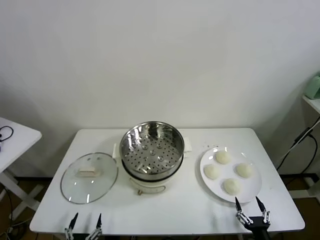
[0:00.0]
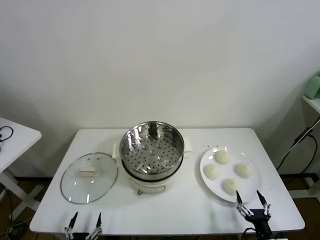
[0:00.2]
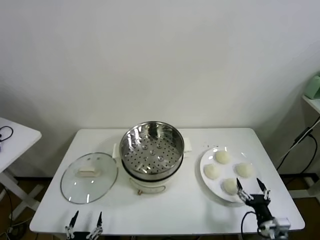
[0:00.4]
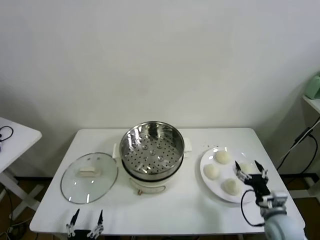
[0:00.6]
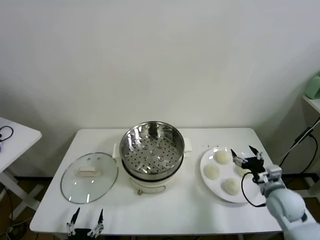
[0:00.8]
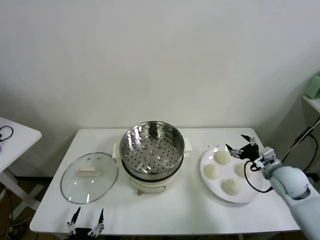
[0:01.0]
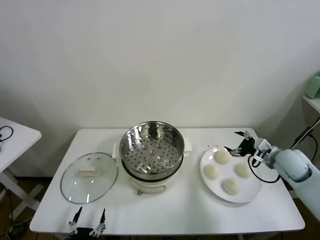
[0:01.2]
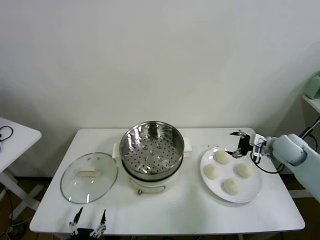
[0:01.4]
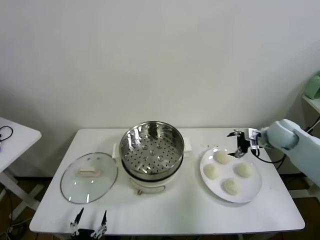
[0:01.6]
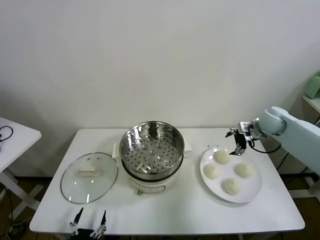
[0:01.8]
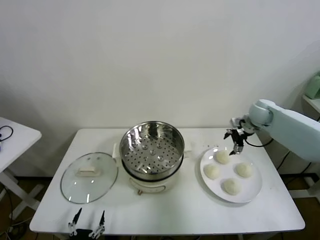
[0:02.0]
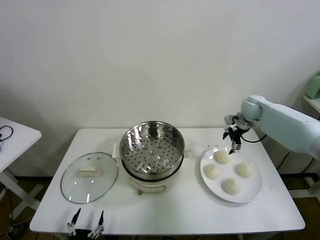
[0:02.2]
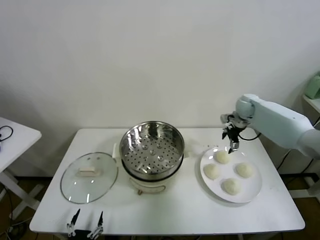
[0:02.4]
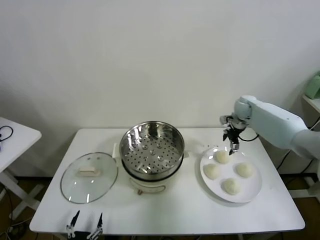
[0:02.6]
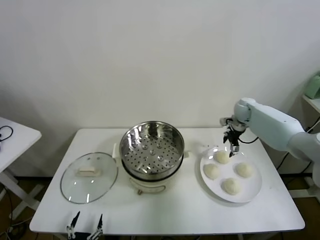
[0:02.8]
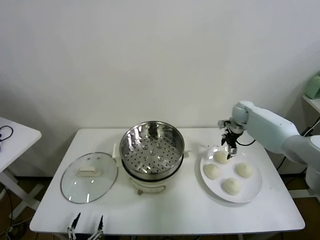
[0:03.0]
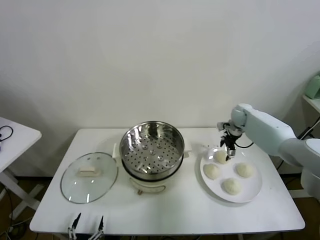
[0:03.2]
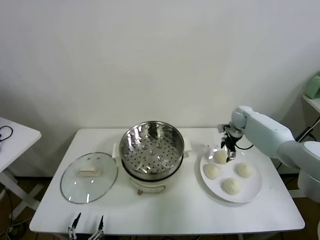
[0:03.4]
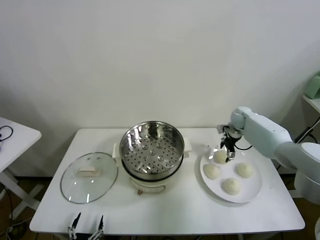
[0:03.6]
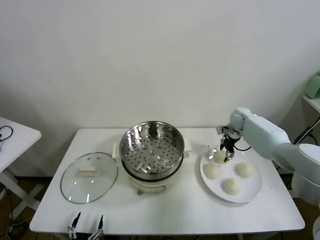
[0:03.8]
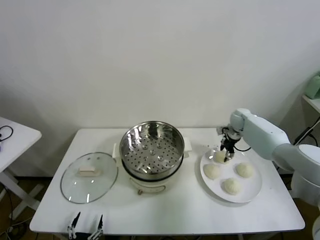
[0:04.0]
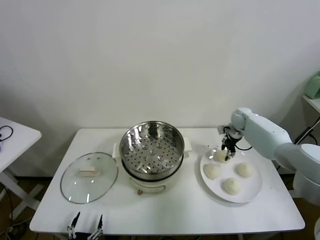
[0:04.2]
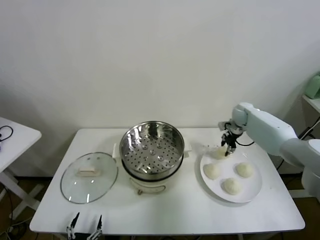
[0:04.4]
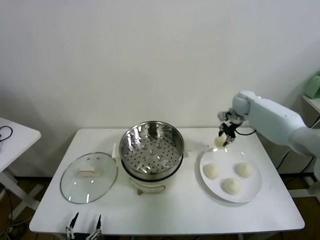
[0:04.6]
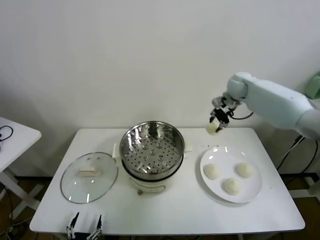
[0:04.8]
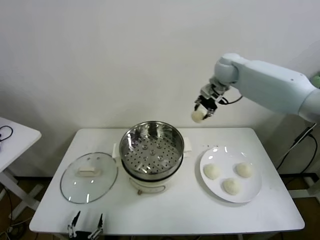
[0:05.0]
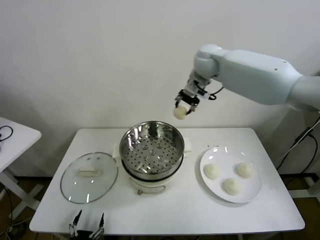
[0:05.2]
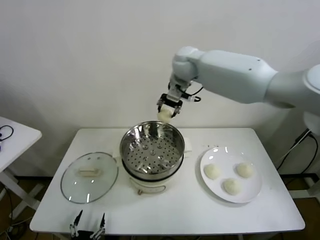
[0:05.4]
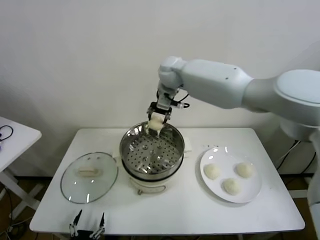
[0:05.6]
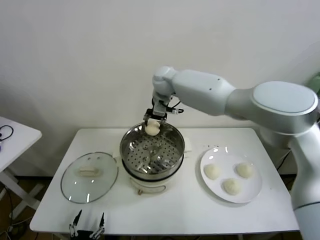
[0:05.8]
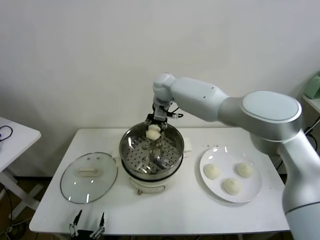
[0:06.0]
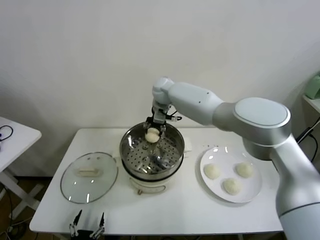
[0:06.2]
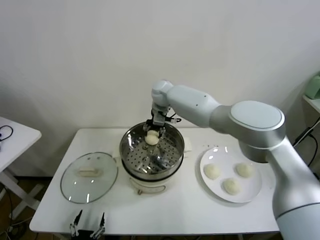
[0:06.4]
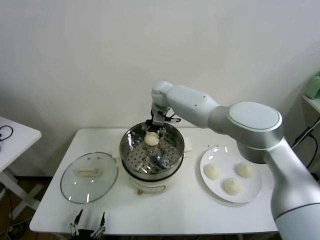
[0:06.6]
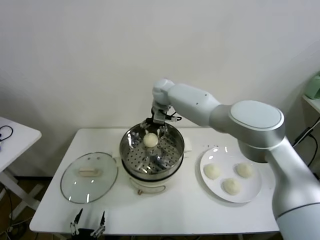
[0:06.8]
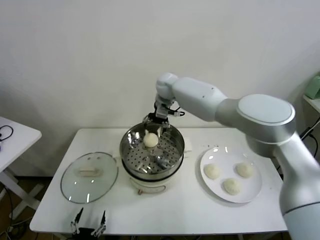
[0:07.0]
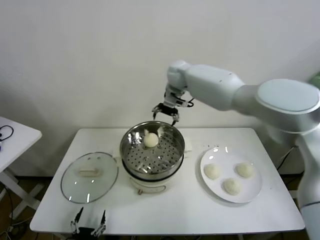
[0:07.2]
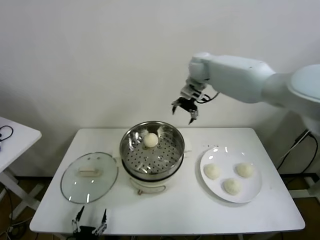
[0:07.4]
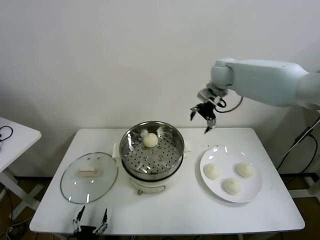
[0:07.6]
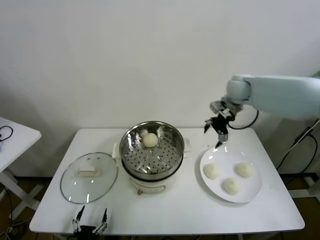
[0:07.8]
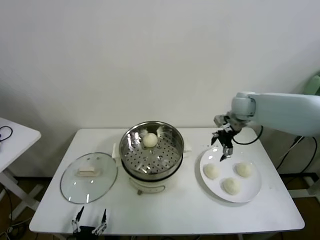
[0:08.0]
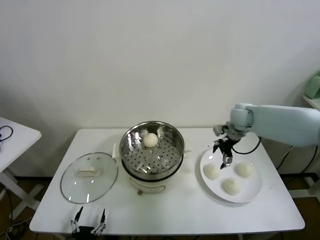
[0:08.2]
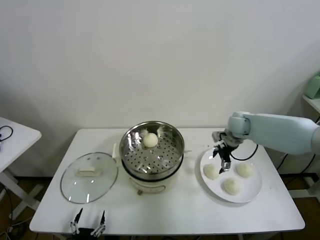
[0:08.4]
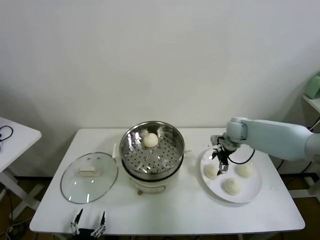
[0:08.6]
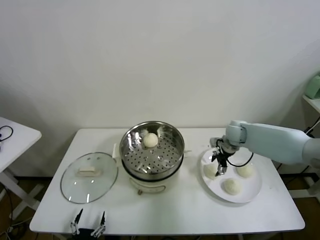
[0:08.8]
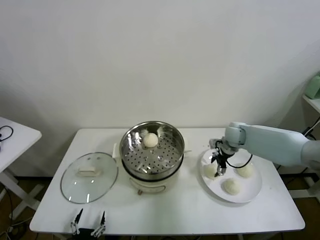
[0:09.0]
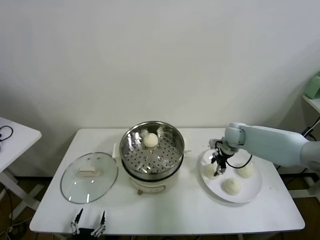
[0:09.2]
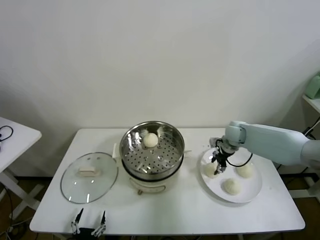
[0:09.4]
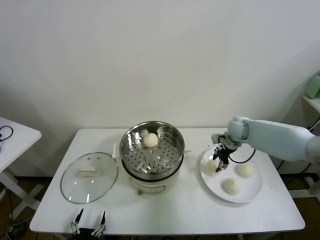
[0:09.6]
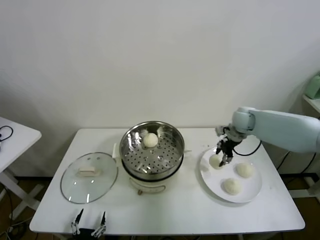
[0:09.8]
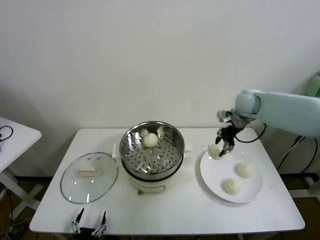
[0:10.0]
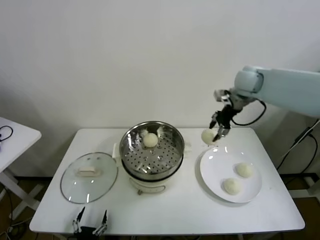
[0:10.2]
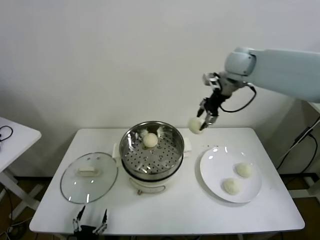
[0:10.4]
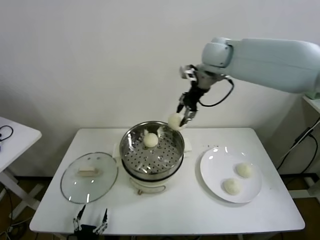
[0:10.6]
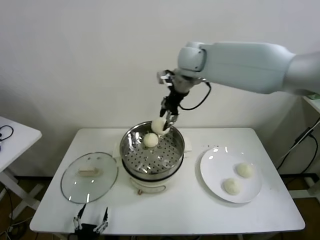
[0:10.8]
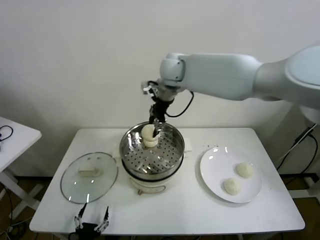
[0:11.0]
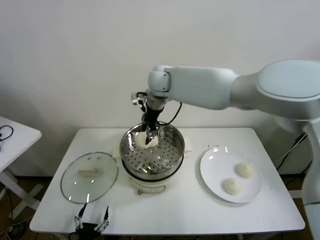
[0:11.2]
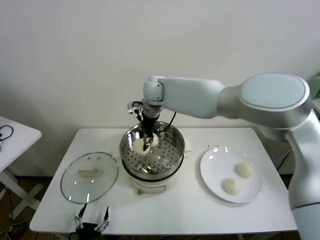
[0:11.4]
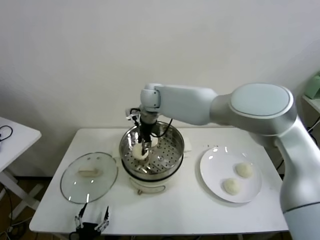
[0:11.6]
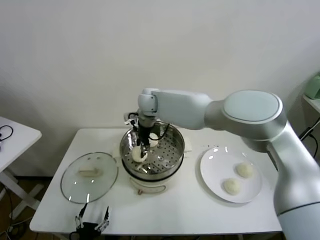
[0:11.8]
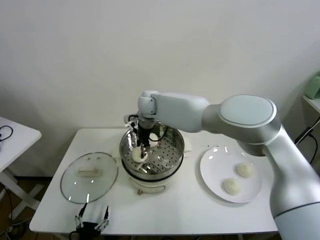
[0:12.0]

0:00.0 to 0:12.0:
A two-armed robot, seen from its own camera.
Task of the whole recording: take steamed baozi put them in steamer.
Step, 0:00.0 to 0:04.0: Grasp the baozi in the plate with right gripper.
Step, 0:04.2 to 0:06.6: Place the baozi on the steamer with right gripper.
Step, 0:06.8 to 0:09.2: Grasp the baozi in the plate with right gripper.
0:01.6 to 0:03.0: The right gripper moves forward and to the left, some 15 cm.
0:03.0 to 0:04.4: The right gripper closes up.
0:04.4 to 0:06.0: The right gripper travels to the left by about 35 cm.
0:06.0 to 0:07.6: The right gripper shifts about 25 cm to the right, and opens.
0:07.6 to 0:09.0: The right gripper heads downward, covering approximately 20 cm, and closes.
0:09.0 to 0:10.4: The right gripper moves upward, approximately 30 cm.
0:10.4 to 0:12.0: The right gripper heads to the left and downward, covering about 30 cm.

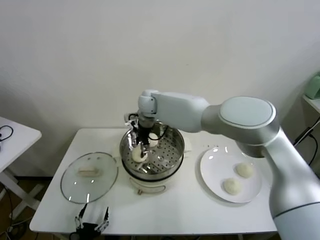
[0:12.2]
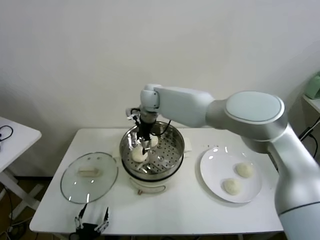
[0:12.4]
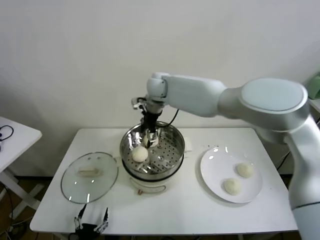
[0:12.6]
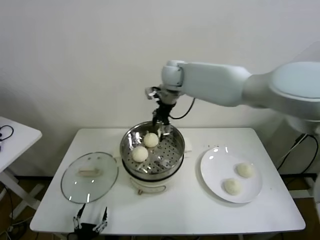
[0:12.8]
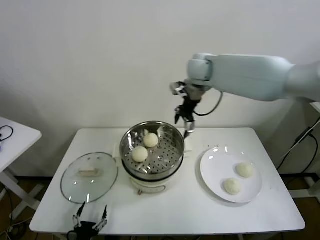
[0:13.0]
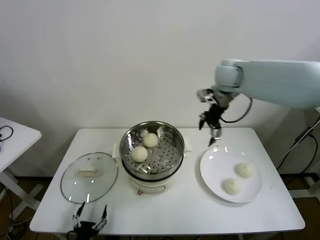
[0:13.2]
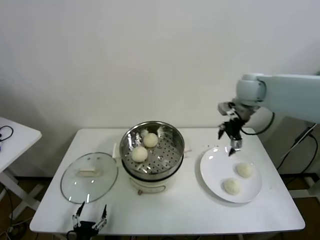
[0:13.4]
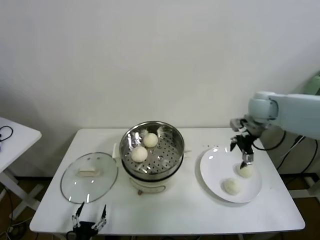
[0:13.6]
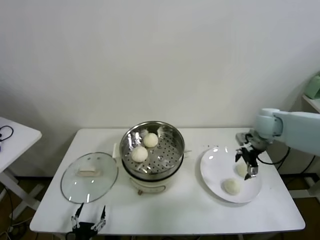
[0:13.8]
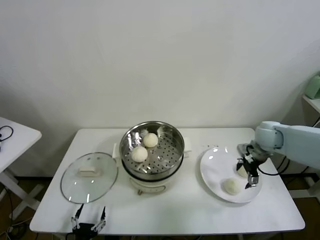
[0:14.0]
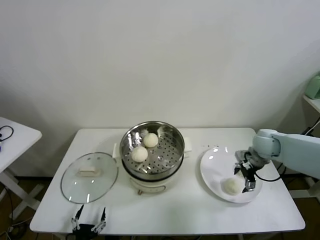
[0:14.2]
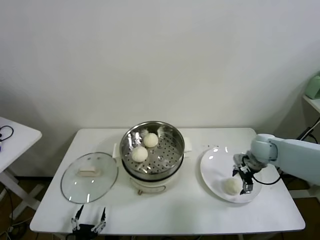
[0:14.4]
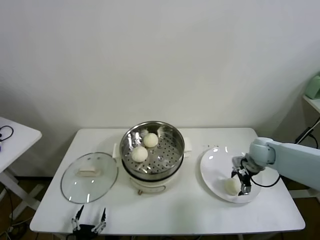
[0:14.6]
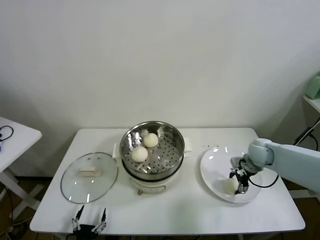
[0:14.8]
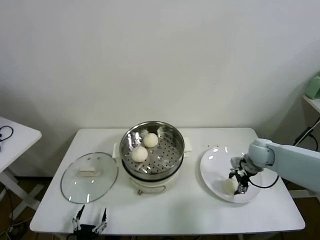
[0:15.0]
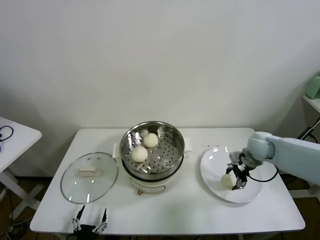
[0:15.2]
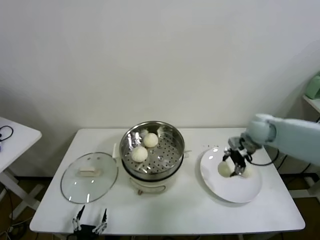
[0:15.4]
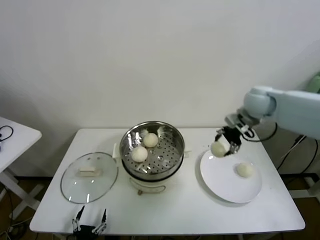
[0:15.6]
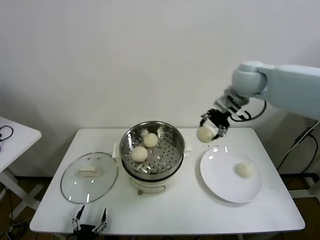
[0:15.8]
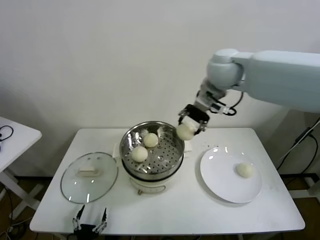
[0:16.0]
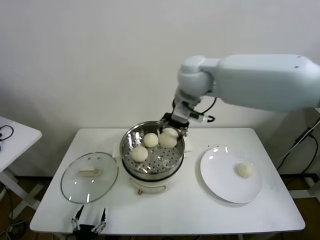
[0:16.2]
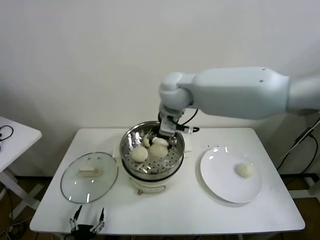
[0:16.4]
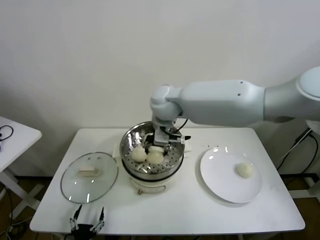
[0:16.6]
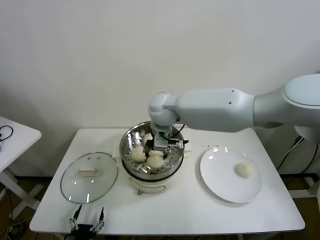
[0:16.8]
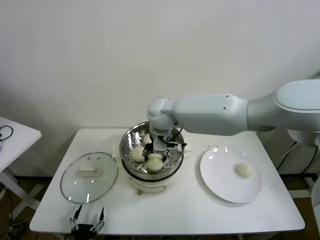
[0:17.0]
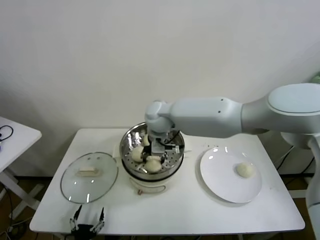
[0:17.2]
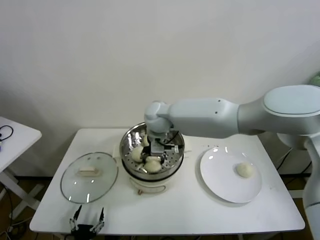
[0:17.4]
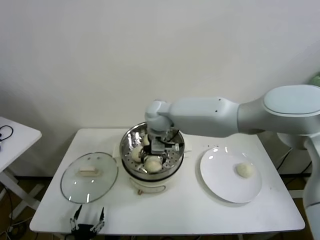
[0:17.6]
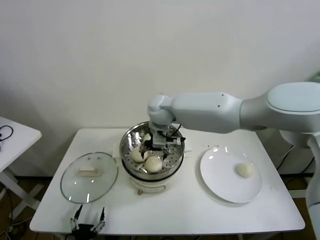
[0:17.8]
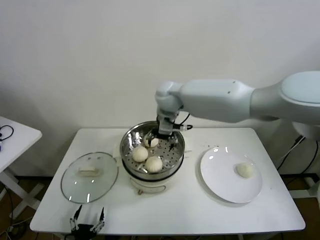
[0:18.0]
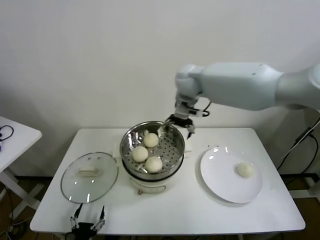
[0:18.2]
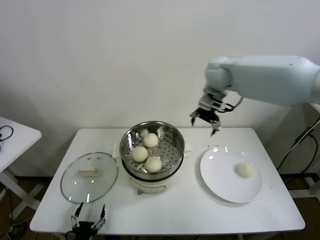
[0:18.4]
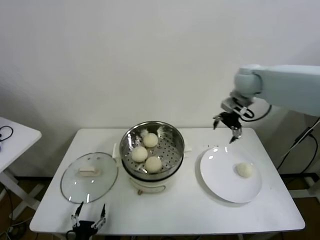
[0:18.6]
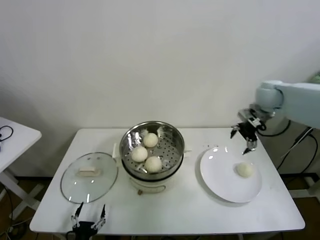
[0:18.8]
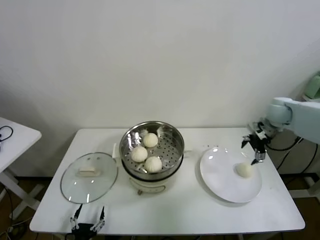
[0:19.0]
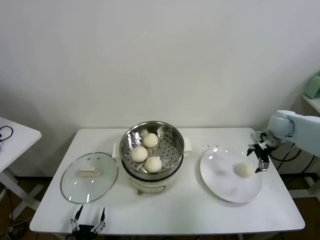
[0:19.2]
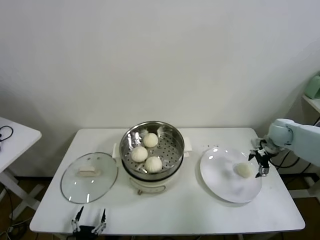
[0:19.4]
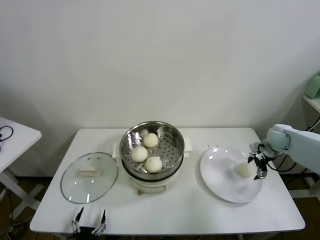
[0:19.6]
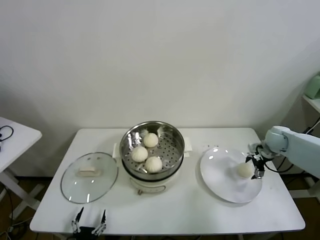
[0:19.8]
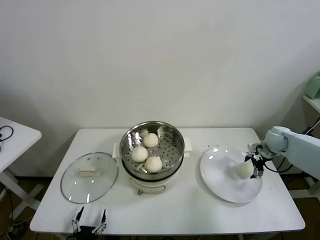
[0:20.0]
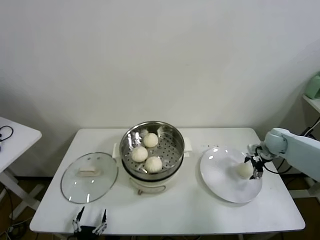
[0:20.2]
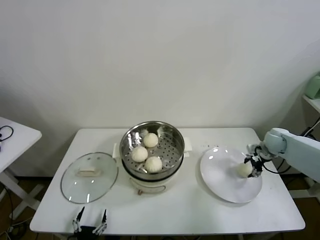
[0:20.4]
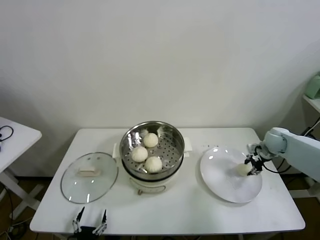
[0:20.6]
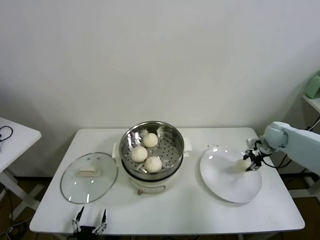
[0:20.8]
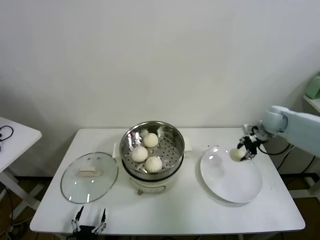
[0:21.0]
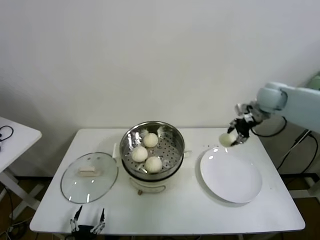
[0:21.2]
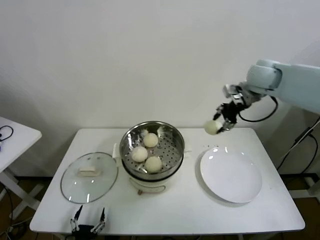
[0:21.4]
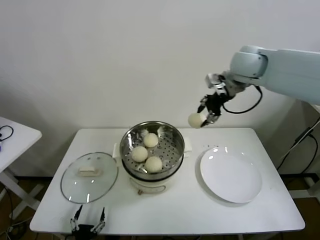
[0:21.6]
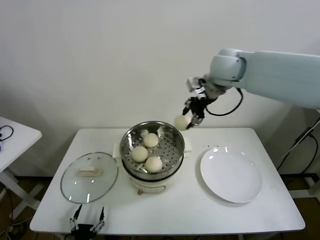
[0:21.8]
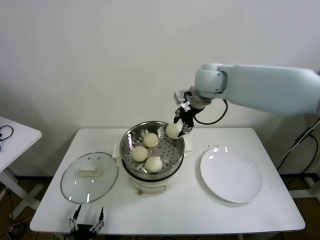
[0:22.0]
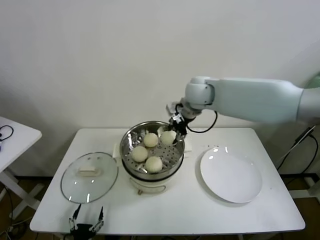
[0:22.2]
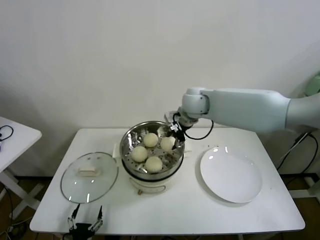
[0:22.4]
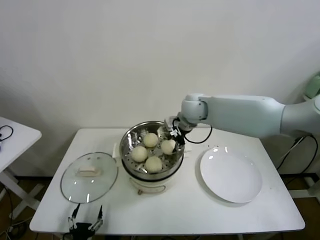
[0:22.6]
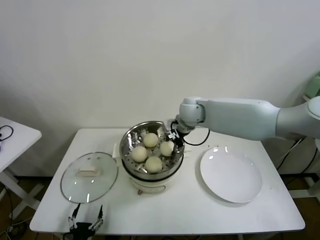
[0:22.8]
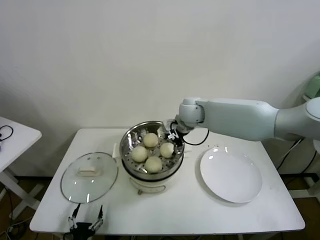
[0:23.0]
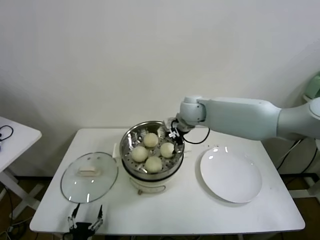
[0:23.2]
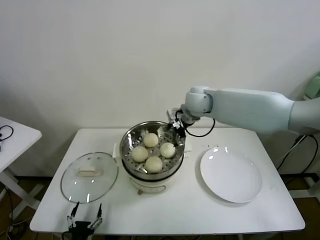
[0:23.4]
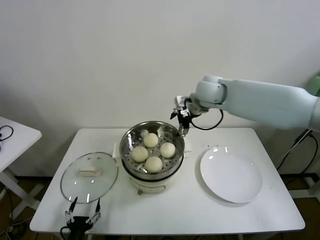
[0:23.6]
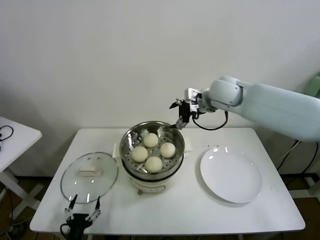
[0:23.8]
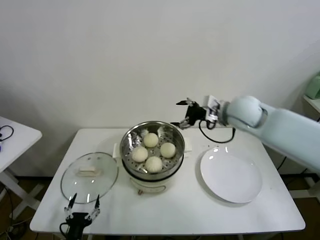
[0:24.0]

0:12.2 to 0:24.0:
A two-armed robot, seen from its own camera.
Task of the whole recording: take steamed baozi put them in steamer.
Step, 0:12.4 to 0:14.8: Grasp the baozi in the plate with right gripper.
Step, 0:15.0 to 0:17.6: Place the baozi on the steamer with right gripper.
Step, 0:17.8 to 0:20.4: Grasp the baozi in the plate with right gripper.
Step, 0:20.8 to 0:23.0: Place the baozi on the steamer with right gripper.
0:12.2 to 0:13.6: The right gripper heads to the right, covering roughly 40 cm.
0:13.6 to 0:15.2: The right gripper shifts approximately 10 cm downward, and closes its fingers.
0:15.2 to 0:16.6: The right gripper is displaced to the left and upward by approximately 35 cm.
0:16.6 to 0:18.2: The right gripper heads to the right, forward and upward, covering about 15 cm, and opens its fingers.
0:18.2 to 0:19.6: The right gripper shifts about 40 cm to the right and downward.
0:19.6 to 0:21.0: The right gripper moves upward, about 10 cm, and closes.
0:21.0 to 0:22.6: The right gripper heads to the left, covering roughly 30 cm.
0:22.6 to 0:24.0: The right gripper moves to the right and backward, approximately 15 cm, and opens.
